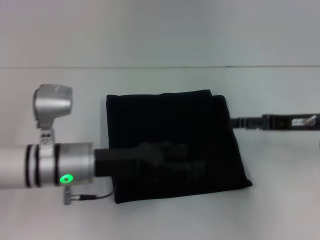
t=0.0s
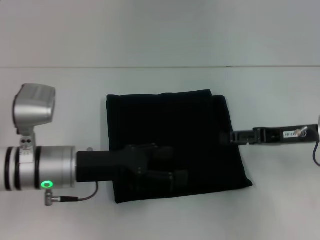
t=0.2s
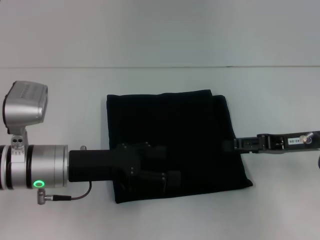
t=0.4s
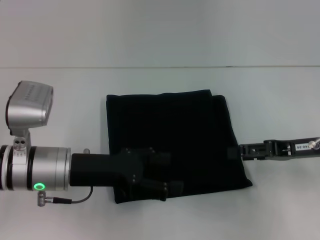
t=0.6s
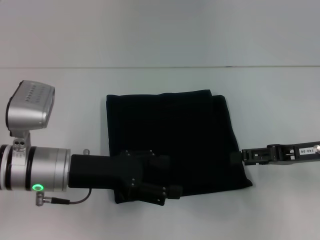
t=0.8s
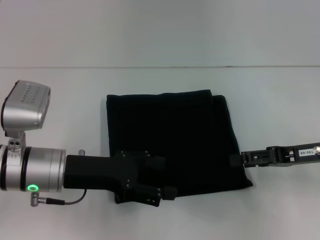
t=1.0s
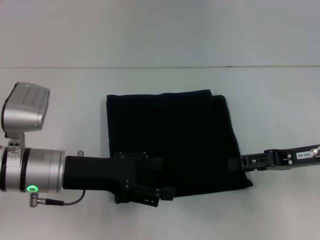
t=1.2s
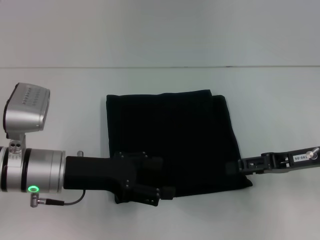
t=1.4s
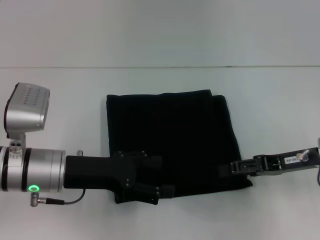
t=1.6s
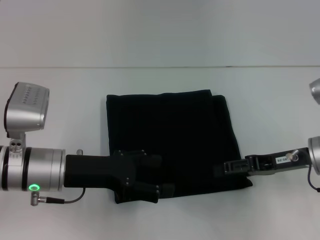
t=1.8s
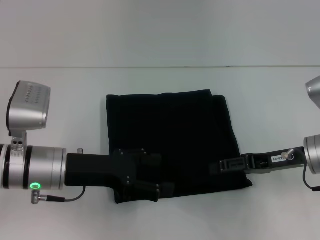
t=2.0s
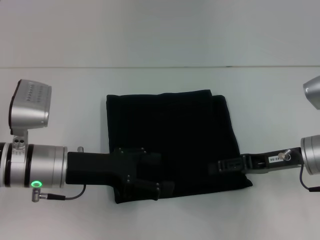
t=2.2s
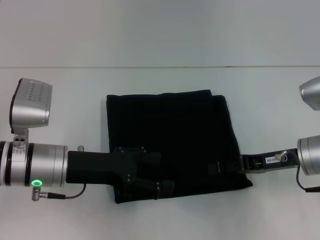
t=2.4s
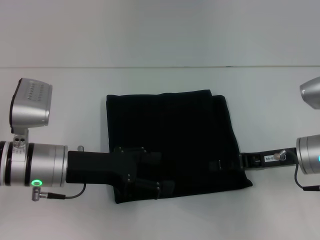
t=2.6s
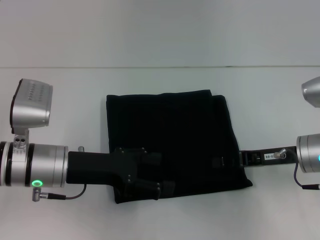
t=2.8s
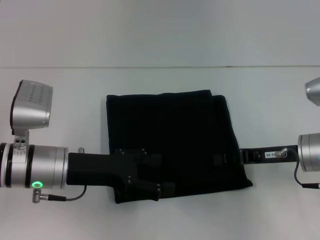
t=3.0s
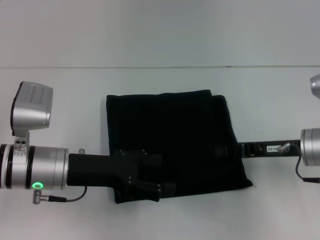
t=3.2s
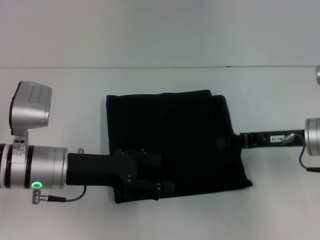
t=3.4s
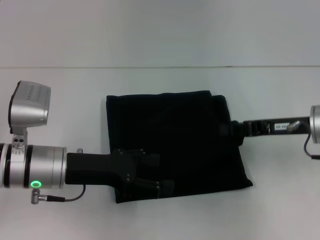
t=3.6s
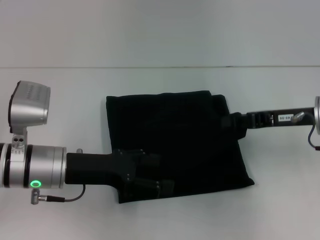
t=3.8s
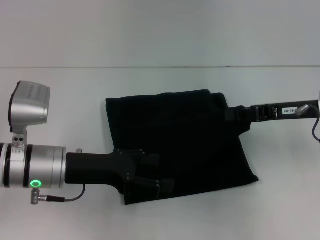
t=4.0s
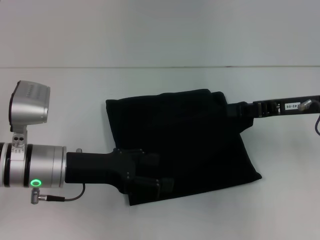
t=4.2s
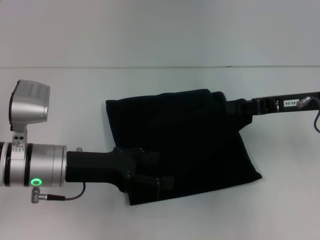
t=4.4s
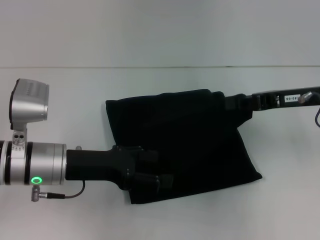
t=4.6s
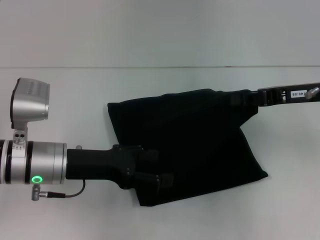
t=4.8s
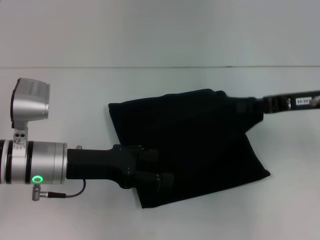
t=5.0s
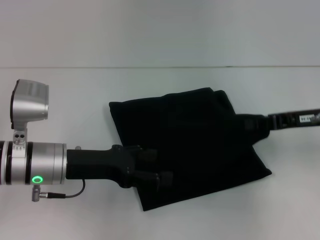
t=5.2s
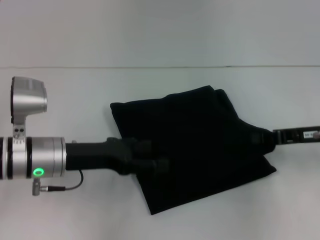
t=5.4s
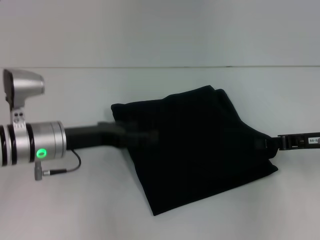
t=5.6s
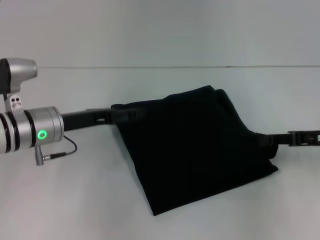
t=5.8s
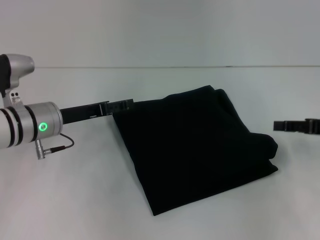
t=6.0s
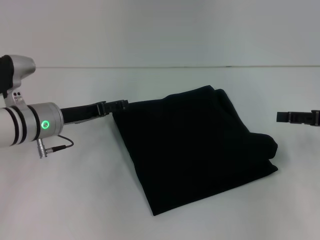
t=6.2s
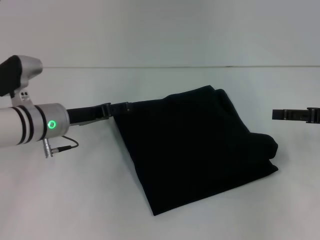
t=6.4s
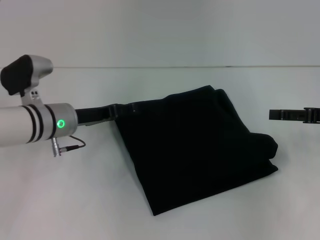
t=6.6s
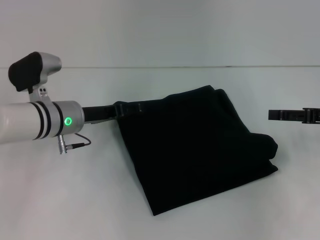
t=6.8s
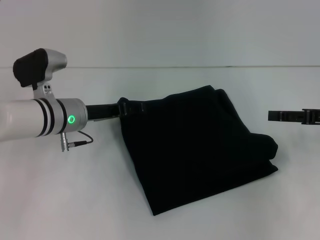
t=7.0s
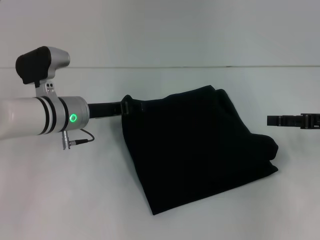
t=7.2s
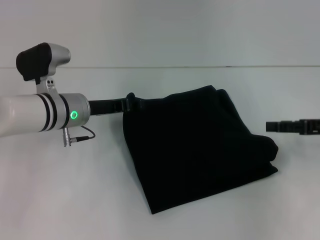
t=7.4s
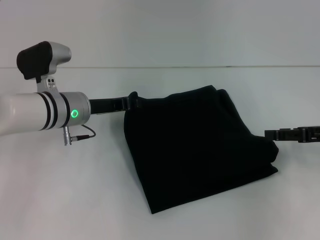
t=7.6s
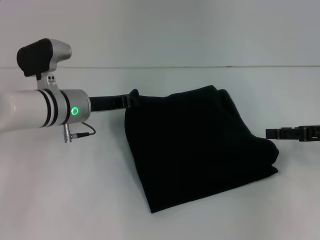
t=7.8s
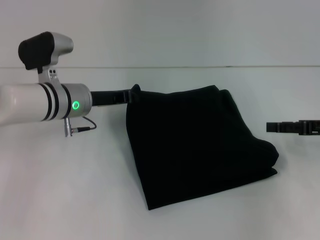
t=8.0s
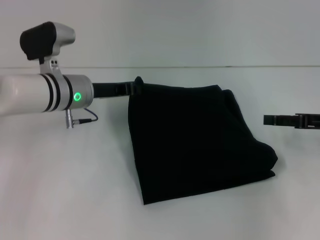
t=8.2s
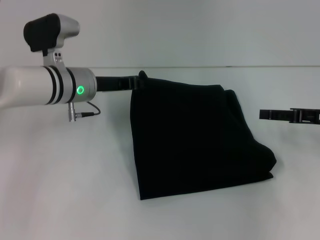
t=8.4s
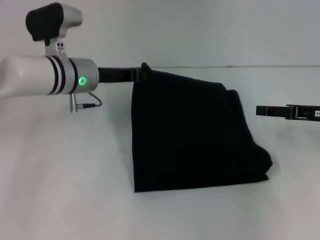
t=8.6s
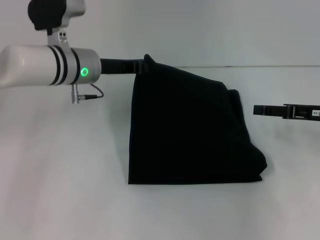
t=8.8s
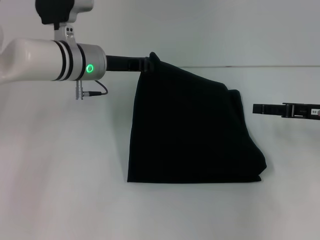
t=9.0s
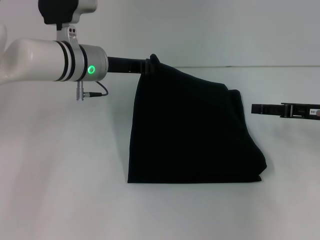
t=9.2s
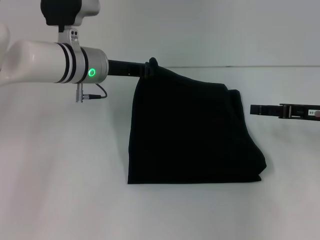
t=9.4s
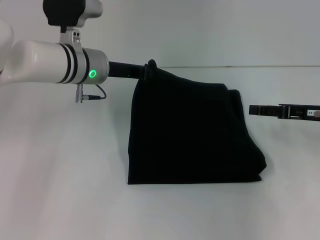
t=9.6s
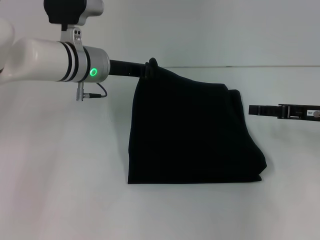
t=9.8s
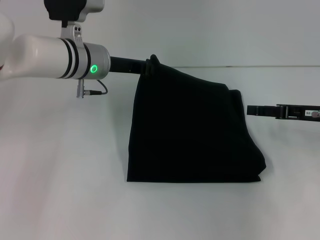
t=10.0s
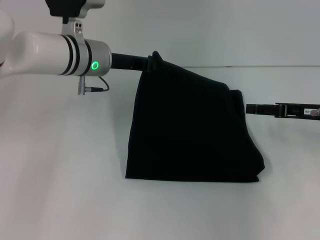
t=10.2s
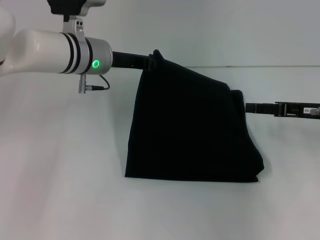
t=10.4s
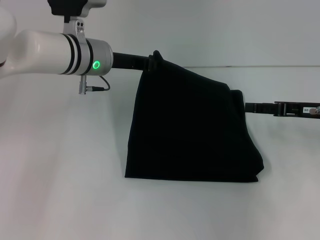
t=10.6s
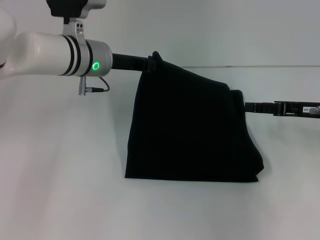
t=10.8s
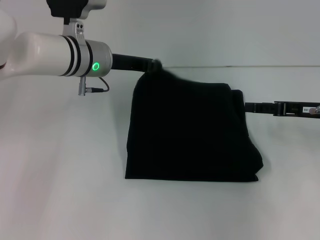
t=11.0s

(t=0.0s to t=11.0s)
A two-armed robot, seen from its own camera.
t=0.0s - t=1.6s: The grippers move only a little.
t=1.6s - t=3.2s: The right gripper closes.
t=3.2s - t=4.8s: The right gripper shifts approximately 10 cm upward.
t=4.8s - t=6.2s: The right gripper travels to the right by about 10 cm, and opens, while the left gripper heads forward, covering approximately 5 cm.
t=6.2s - t=7.8s: The left gripper shifts by roughly 5 cm, and closes.
t=7.8s - t=9.4s: The left gripper is displaced upward by some 5 cm.
t=9.4s - t=11.0s: The grippers move only a little.

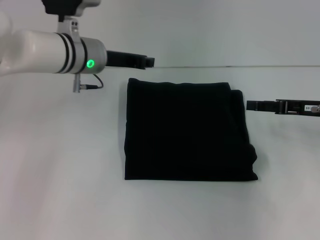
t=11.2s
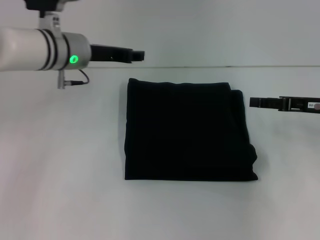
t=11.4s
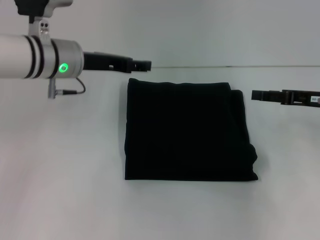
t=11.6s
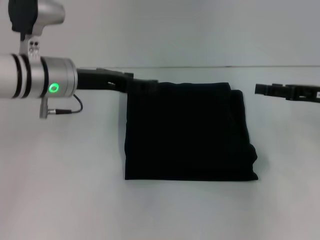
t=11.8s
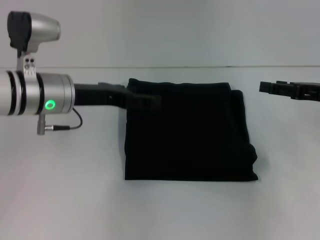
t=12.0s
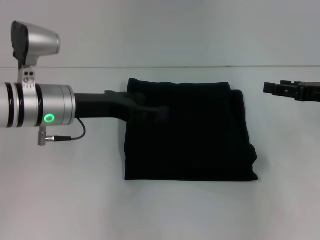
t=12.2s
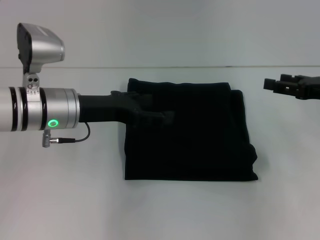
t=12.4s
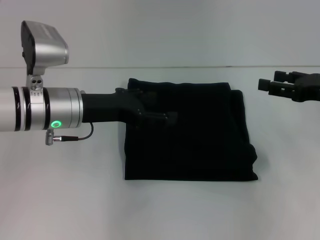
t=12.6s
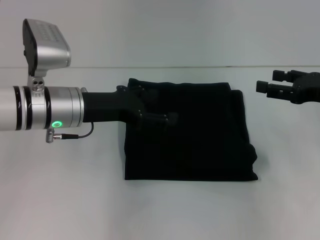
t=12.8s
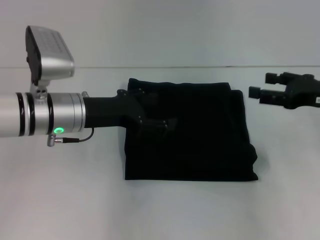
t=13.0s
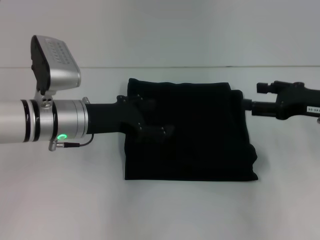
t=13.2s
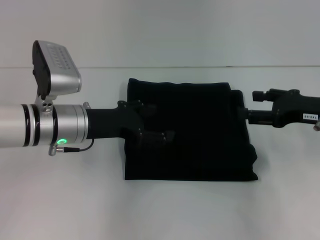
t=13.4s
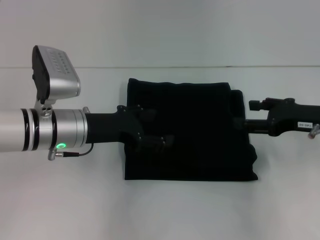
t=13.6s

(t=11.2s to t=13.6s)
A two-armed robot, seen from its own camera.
t=11.2s - t=12.4s: The left gripper is displaced backward by roughly 10 cm, and opens.
t=12.4s - t=13.6s: There are only small adjustments of the grippers.

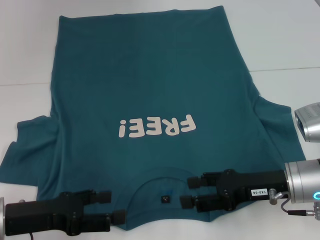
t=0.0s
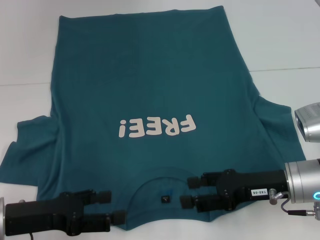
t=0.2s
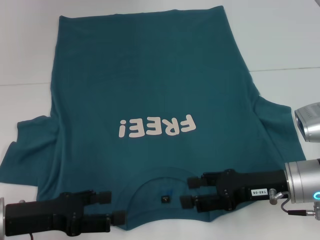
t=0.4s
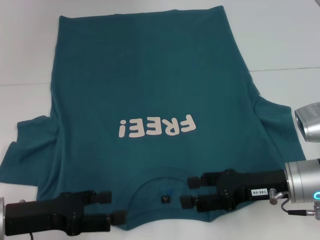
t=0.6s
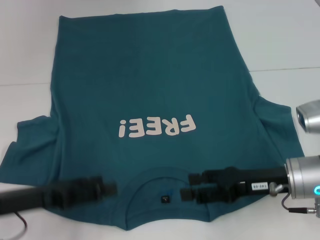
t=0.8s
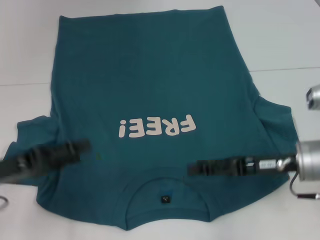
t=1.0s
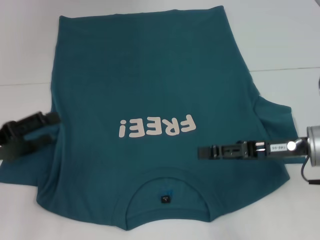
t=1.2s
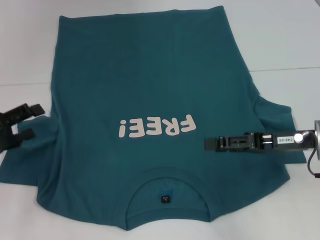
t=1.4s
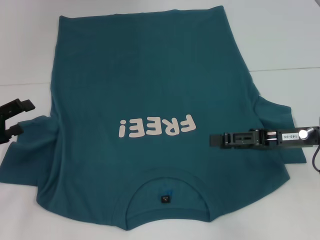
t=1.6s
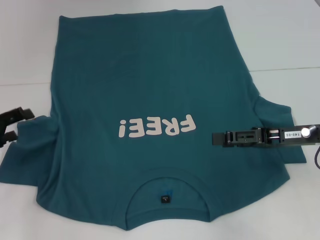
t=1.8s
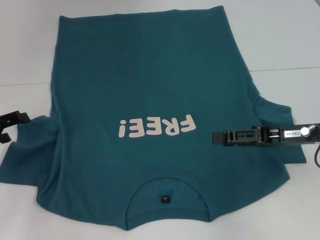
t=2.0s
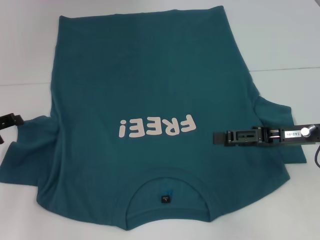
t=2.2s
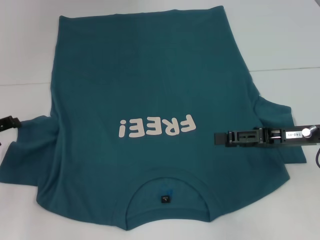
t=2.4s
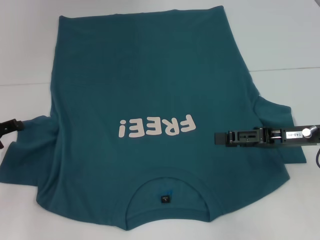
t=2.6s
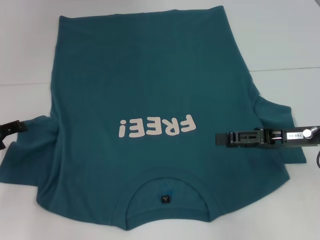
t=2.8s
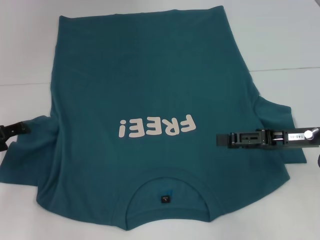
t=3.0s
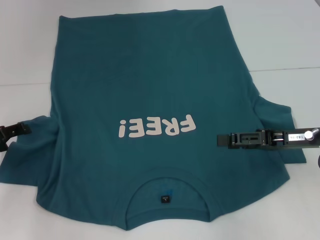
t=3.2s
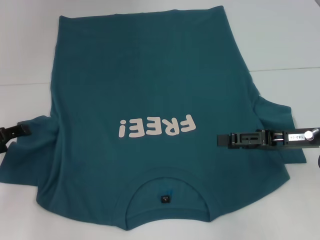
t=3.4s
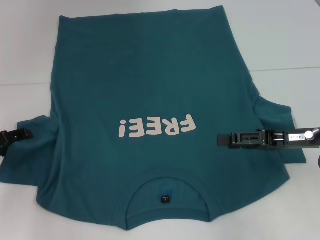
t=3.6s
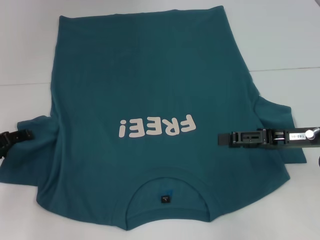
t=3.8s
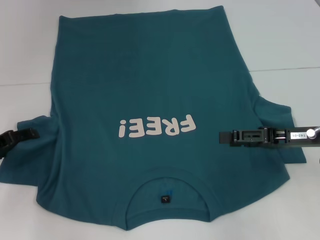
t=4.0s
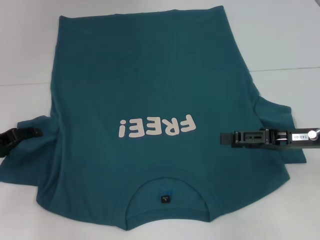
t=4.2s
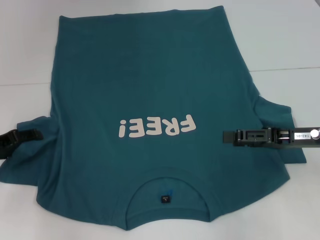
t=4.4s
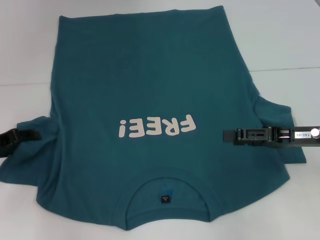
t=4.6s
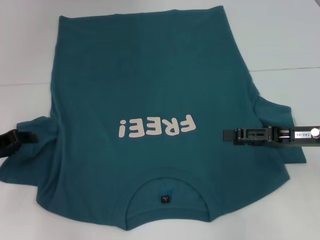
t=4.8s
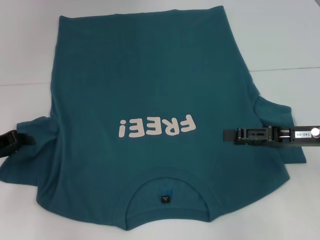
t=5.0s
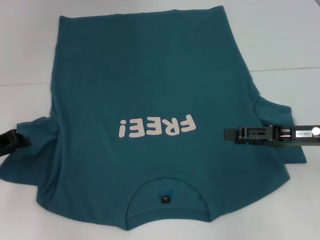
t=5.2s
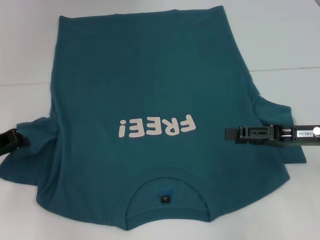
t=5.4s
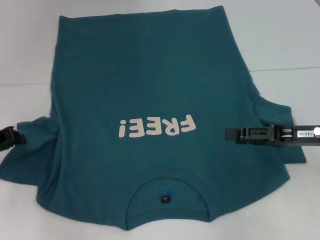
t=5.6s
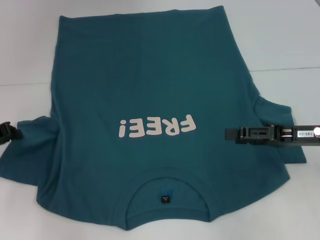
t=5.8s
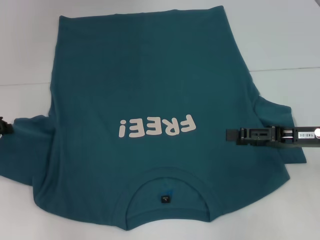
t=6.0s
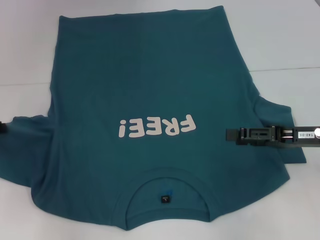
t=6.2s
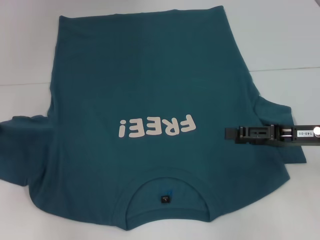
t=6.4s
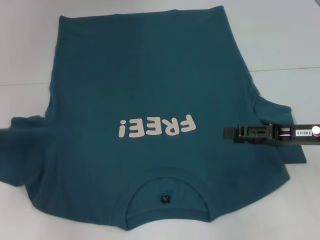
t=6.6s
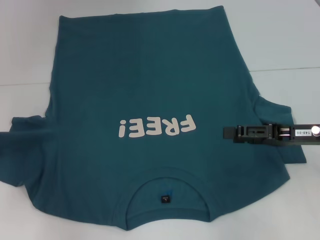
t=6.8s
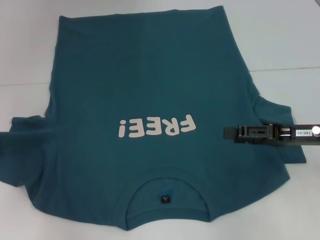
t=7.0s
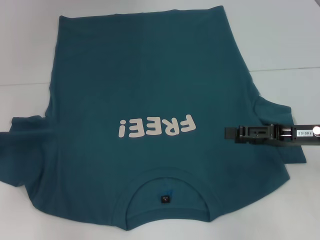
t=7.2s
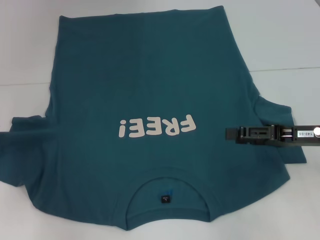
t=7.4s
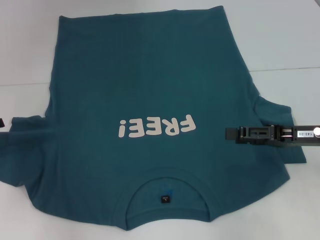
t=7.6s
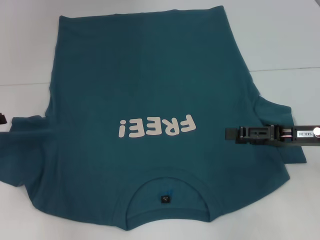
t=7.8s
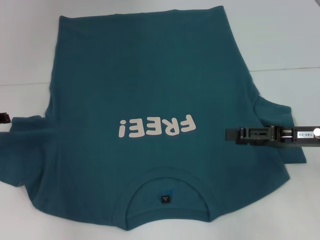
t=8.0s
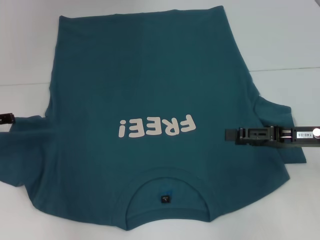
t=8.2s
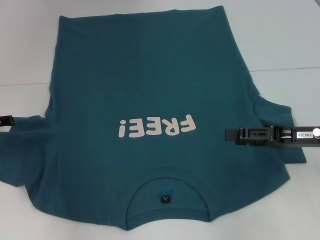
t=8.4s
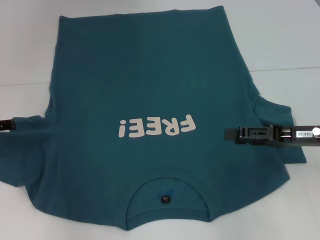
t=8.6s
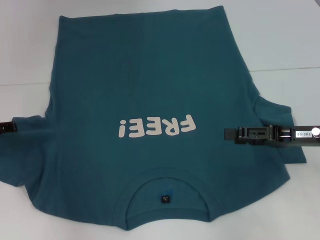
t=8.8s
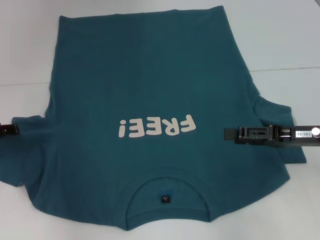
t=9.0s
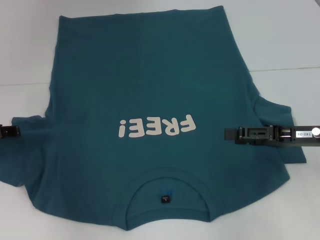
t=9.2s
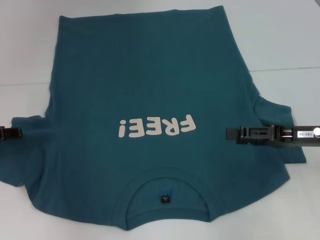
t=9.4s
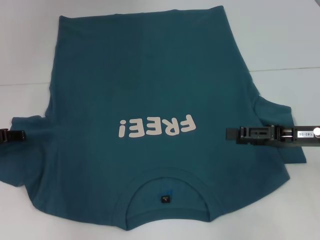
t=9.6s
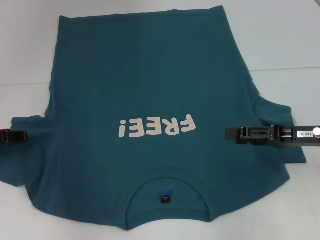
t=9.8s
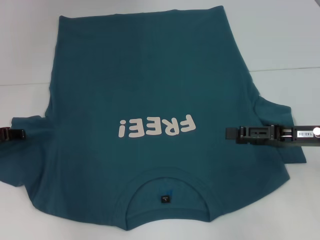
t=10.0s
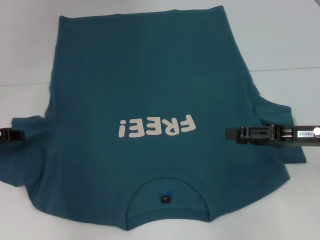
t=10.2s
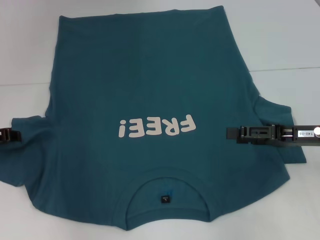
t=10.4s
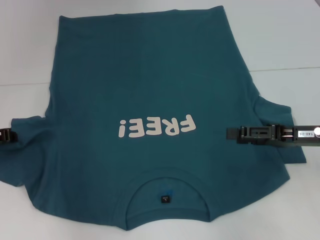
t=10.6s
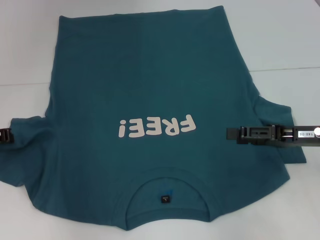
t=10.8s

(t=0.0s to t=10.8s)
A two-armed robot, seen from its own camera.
t=0.0s - t=1.6s: The right gripper moves approximately 5 cm. The left gripper goes some 10 cm to the left and forward.
t=3.0s - t=4.6s: There are only small adjustments of the grippers.
t=4.6s - t=6.2s: The left gripper closes.
t=6.2s - t=7.8s: The left gripper opens.
